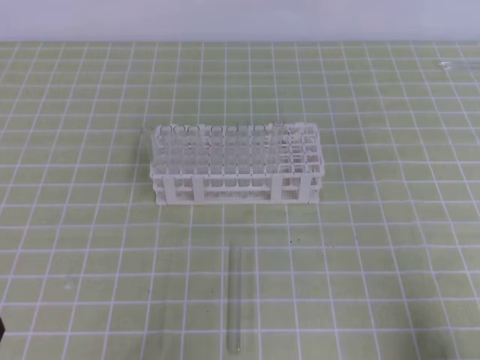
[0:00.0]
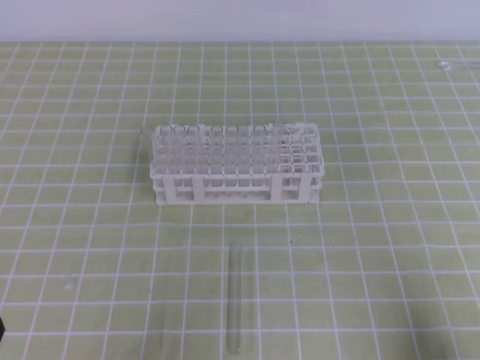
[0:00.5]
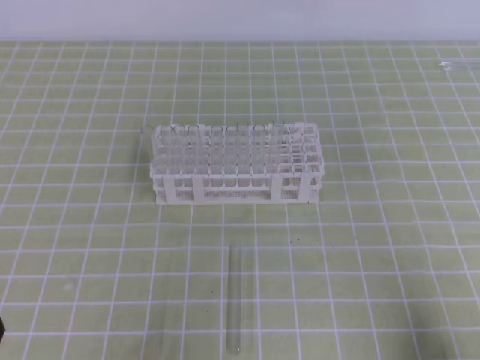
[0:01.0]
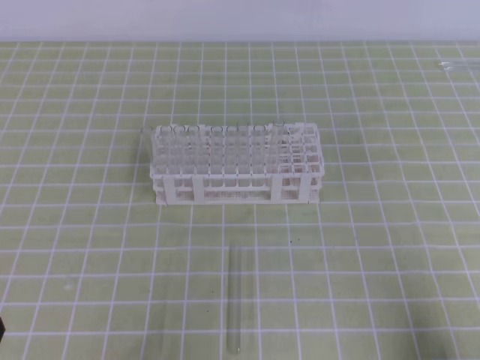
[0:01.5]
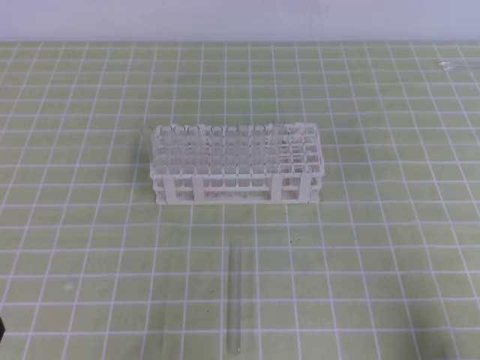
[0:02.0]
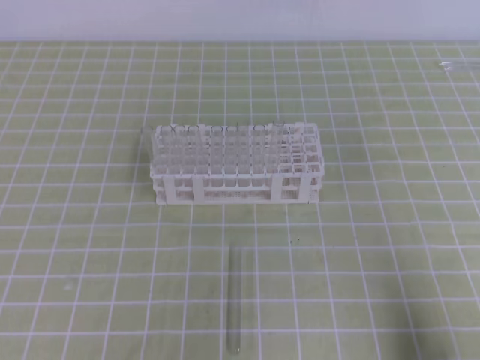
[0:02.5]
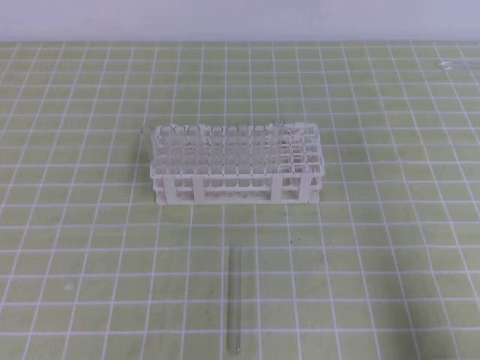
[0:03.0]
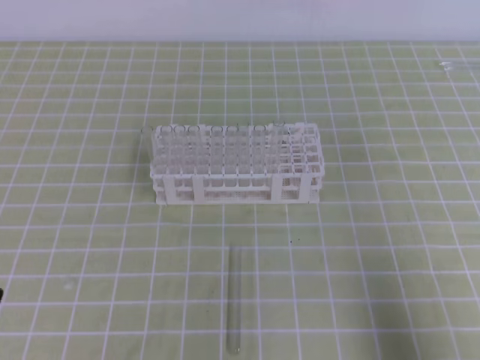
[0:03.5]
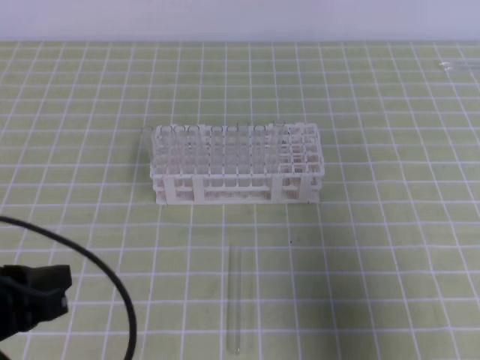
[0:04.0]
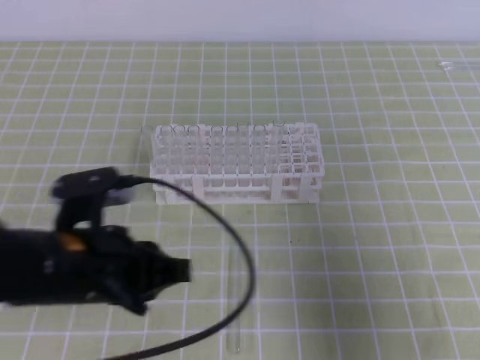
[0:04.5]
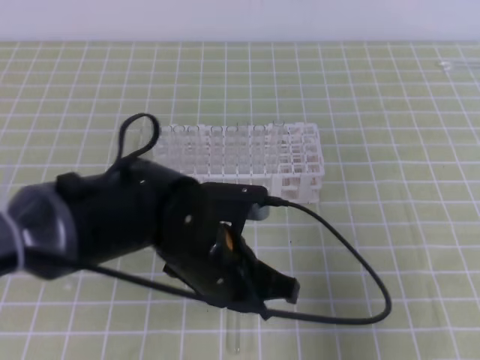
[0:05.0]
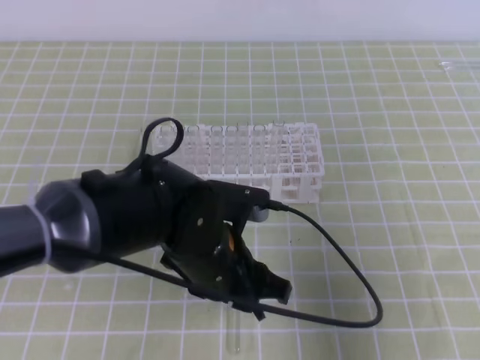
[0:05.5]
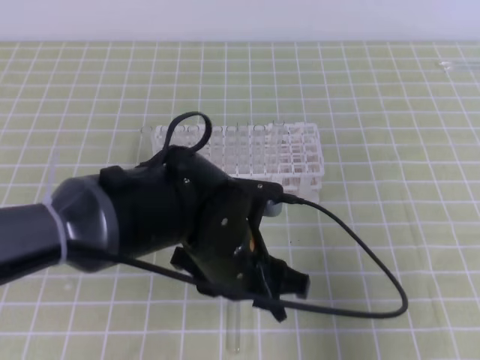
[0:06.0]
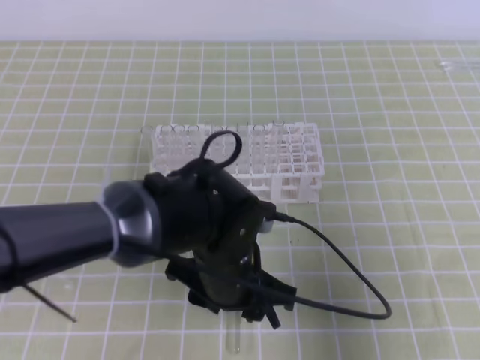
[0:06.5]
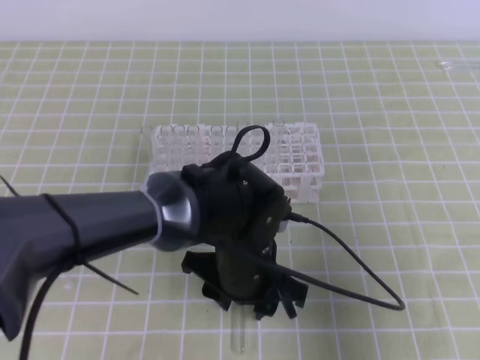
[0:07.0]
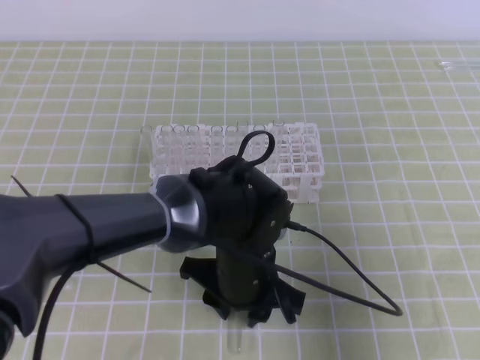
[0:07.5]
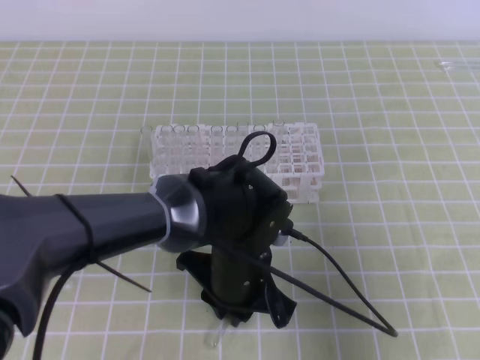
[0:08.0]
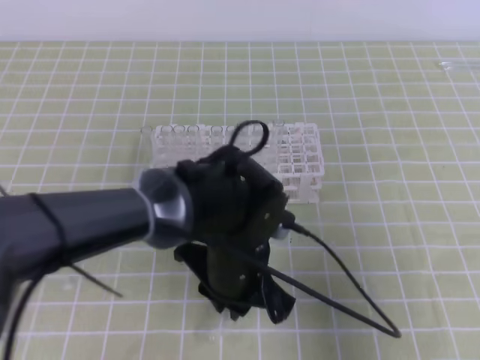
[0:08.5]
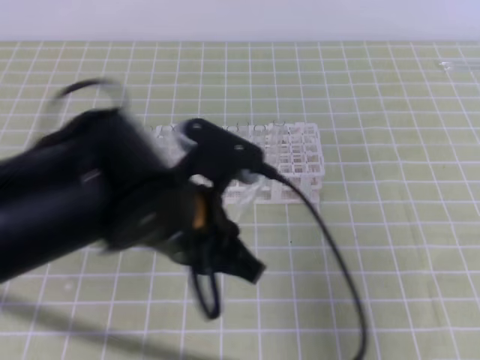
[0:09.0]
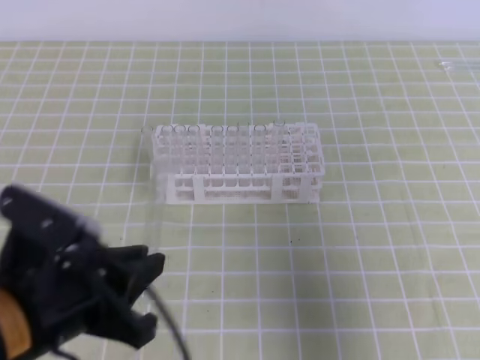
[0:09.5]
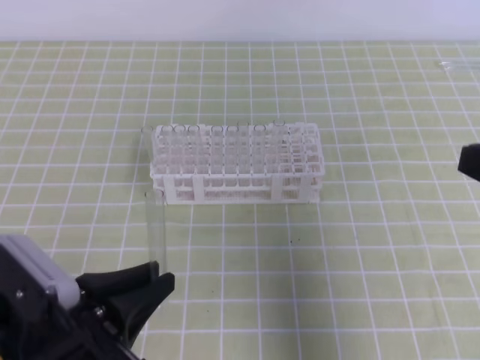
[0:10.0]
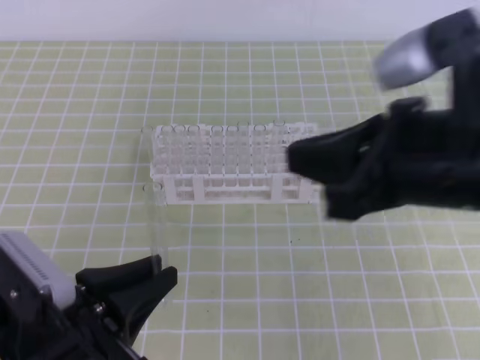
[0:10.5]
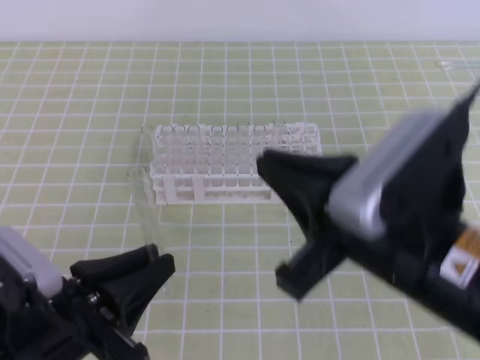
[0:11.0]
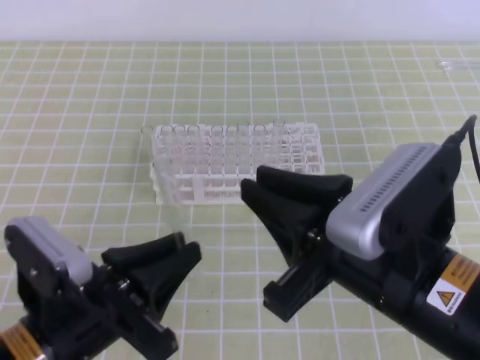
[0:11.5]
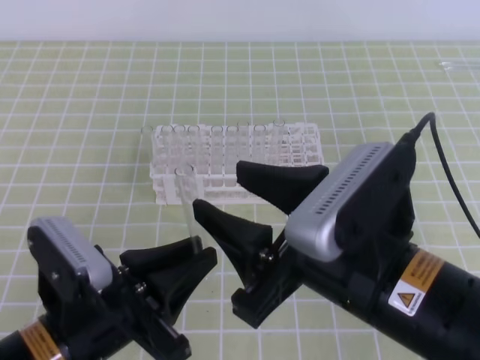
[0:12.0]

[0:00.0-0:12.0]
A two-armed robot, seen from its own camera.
0:00.0 to 0:02.0: Neither gripper changes place.
0:02.0 to 0:04.0: Both grippers move upward and forward, approximately 10 cm.
0:04.0 to 0:06.0: The left gripper goes roughly 25 cm to the right and forward, and opens.
0:06.0 to 0:08.0: The left gripper travels downward by approximately 5 cm, and closes its fingers.
0:08.0 to 0:10.0: The left gripper heads to the left and backward, covering some 20 cm. The right gripper heads upward, covering approximately 10 cm.
0:10.0 to 0:12.0: The right gripper goes roughly 15 cm to the left, and opens up.

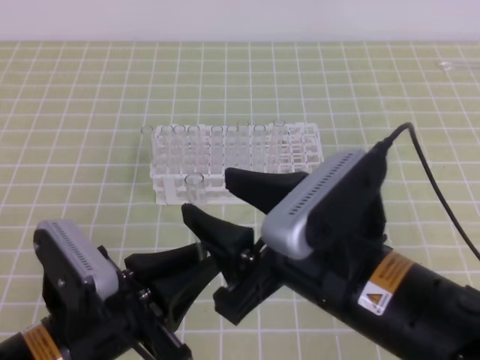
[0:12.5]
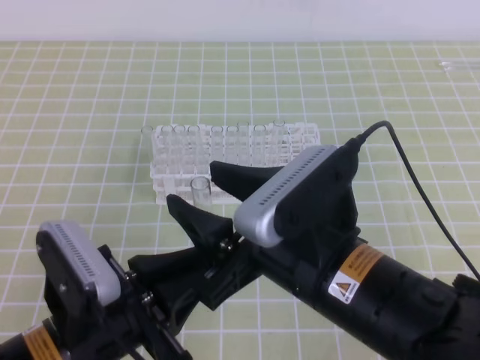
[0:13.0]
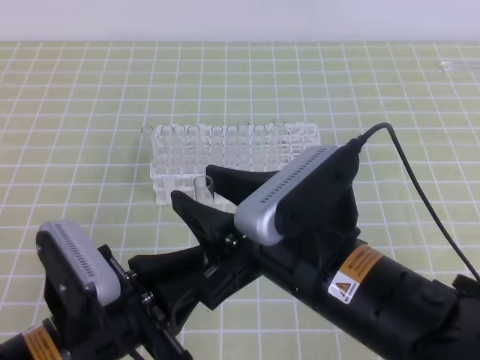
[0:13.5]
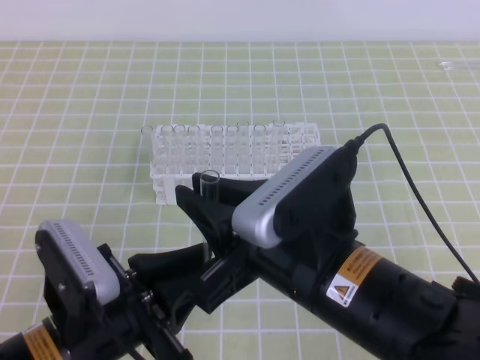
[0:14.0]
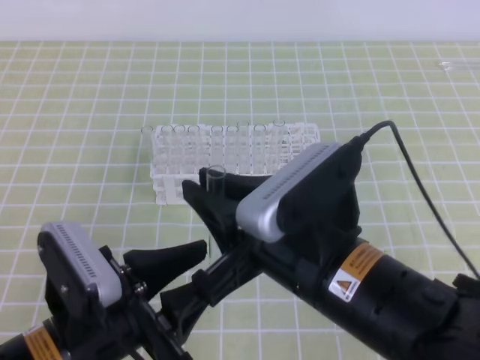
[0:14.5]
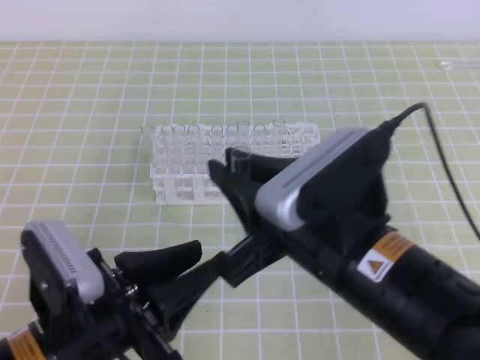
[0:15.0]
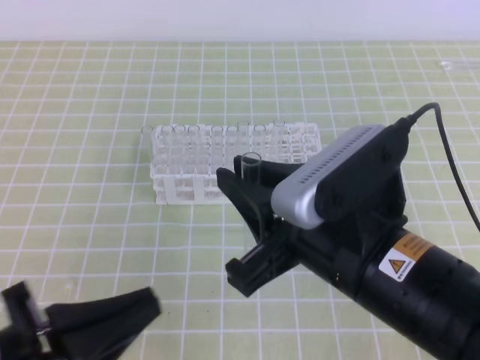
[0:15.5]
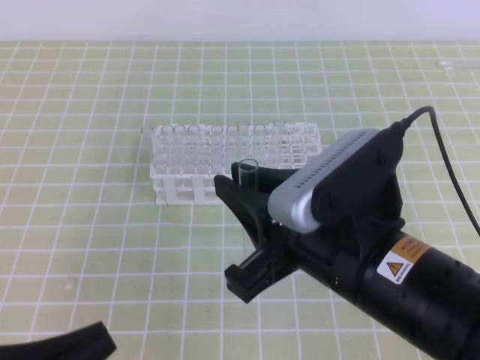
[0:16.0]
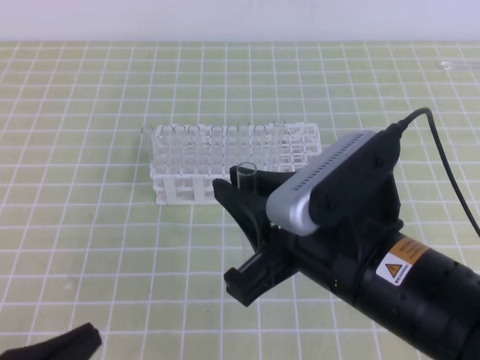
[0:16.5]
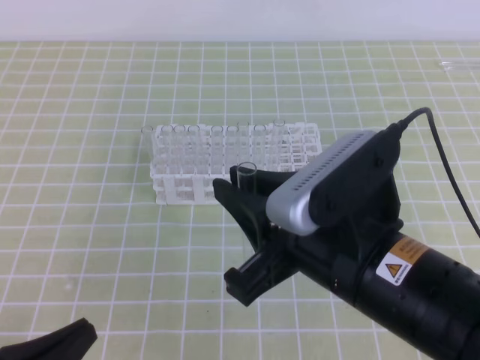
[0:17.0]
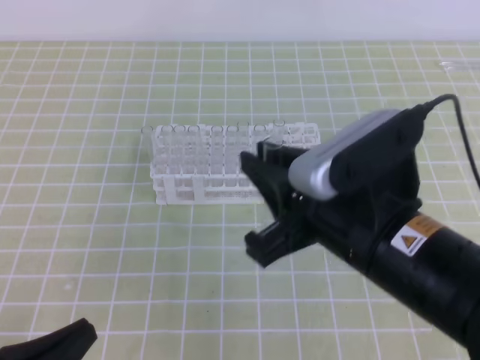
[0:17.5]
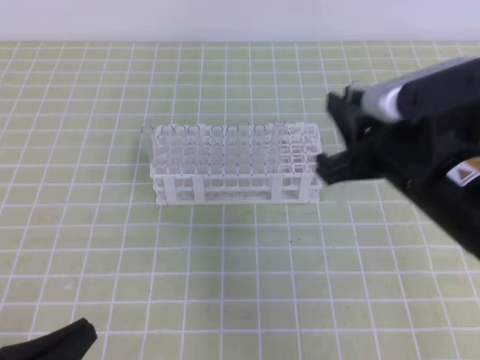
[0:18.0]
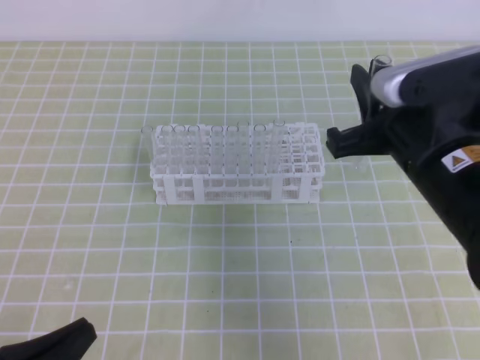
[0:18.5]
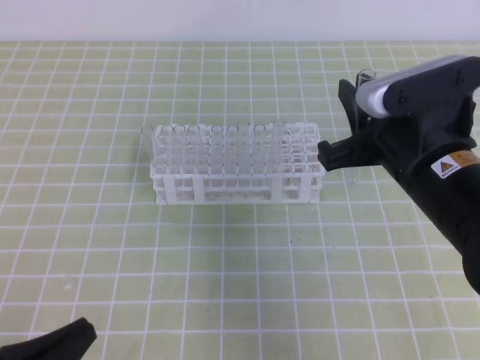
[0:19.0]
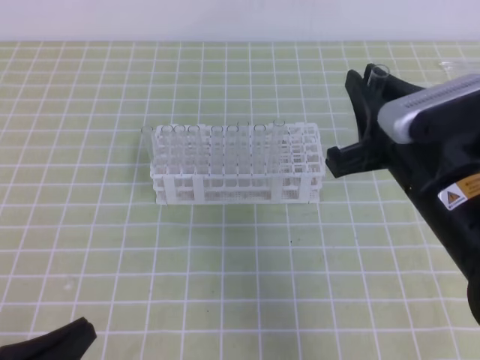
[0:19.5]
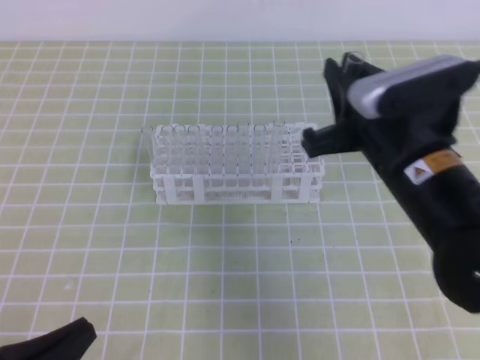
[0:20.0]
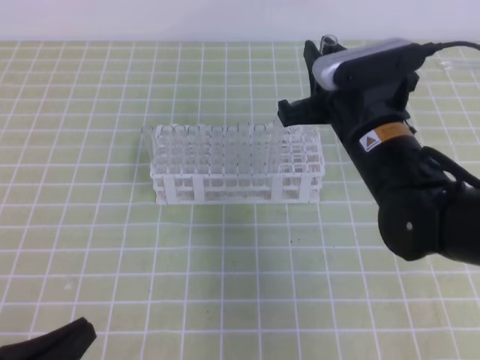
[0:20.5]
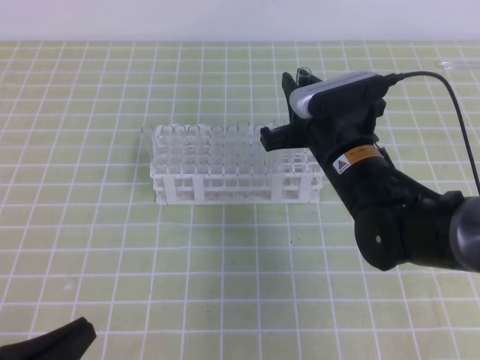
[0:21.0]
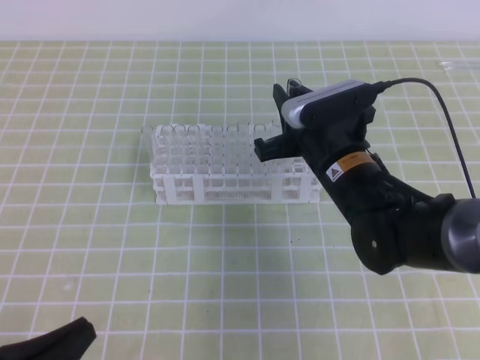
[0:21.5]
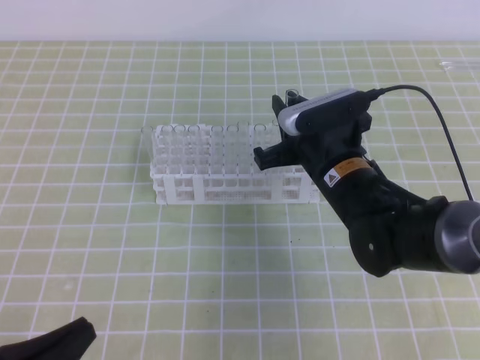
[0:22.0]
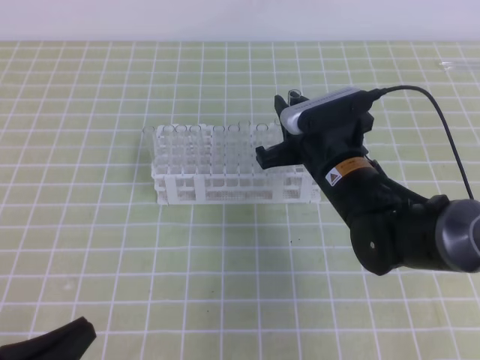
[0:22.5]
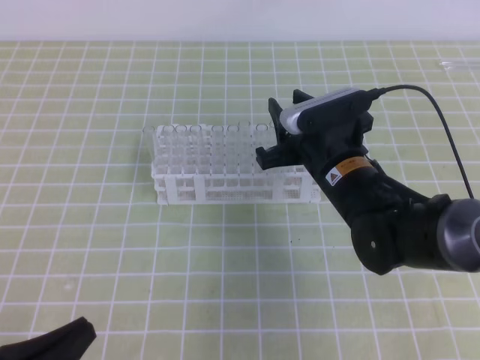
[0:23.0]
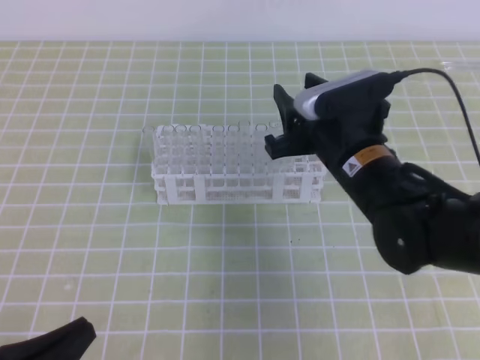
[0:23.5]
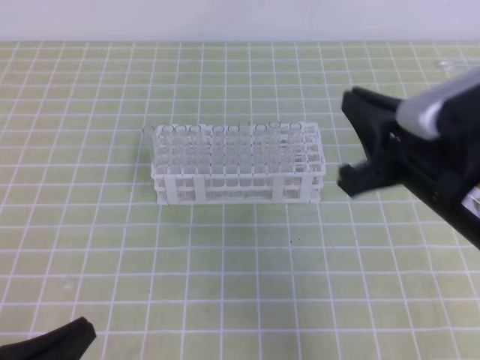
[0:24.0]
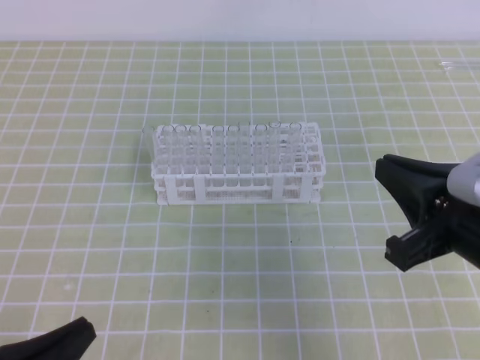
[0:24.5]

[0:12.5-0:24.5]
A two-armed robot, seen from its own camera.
0:12.5 to 0:14.5: The left gripper opens its fingers; the right gripper closes up.
0:14.5 to 0:16.5: The left gripper travels to the left and backward by about 10 cm, and closes.
0:16.5 to 0:18.5: The right gripper moves forward and to the right, some 10 cm.
0:18.5 to 0:20.5: The right gripper heads forward, covering approximately 5 cm.
0:20.5 to 0:22.5: The right gripper is displaced downward by some 5 cm.
0:22.5 to 0:24.5: The right gripper goes roughly 20 cm backward, to the right and upward, and opens, then closes again.

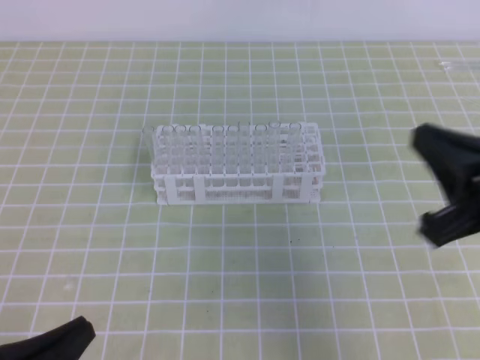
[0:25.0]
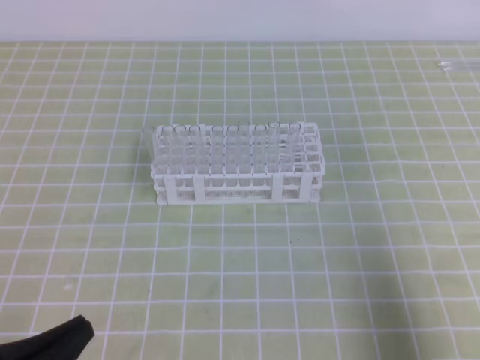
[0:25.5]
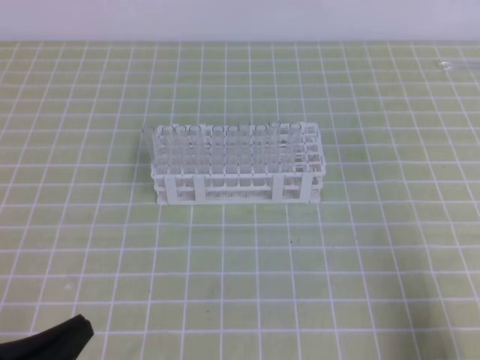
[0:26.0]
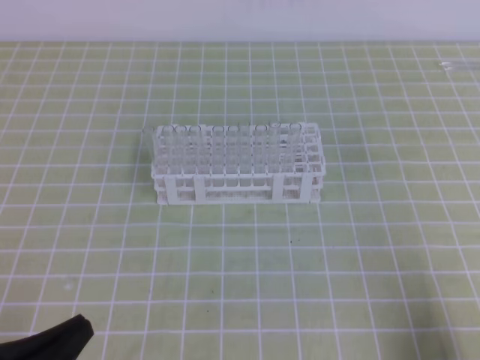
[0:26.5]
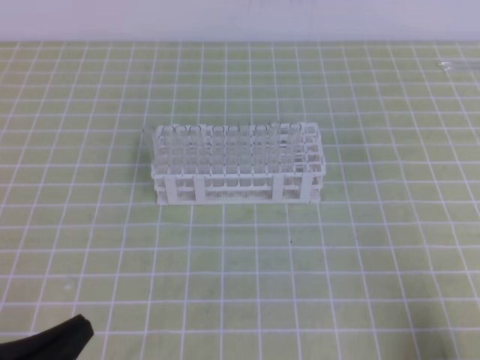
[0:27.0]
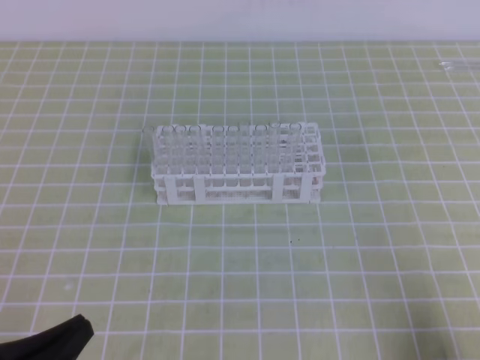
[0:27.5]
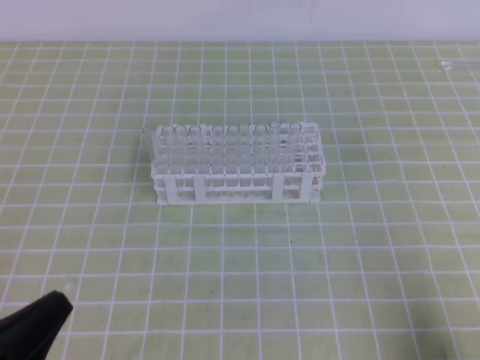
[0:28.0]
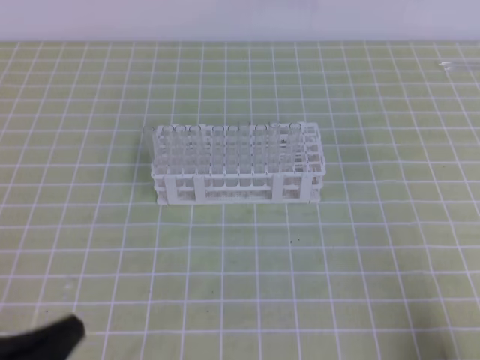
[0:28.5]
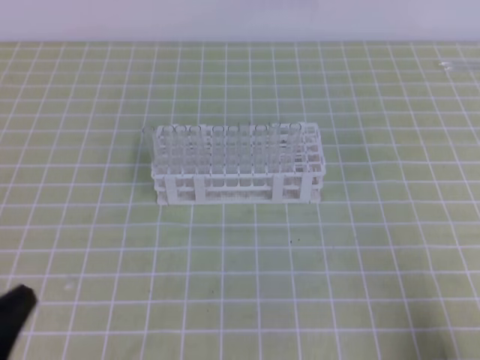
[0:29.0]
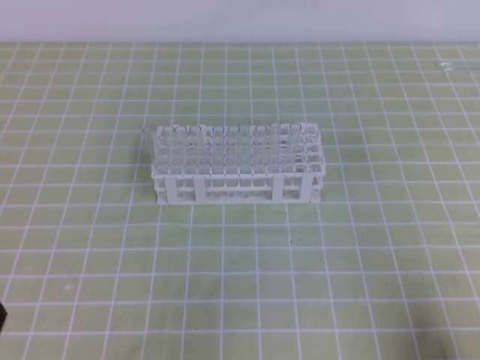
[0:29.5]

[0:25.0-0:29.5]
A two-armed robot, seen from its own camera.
0:25.0 to 0:27.0: The right gripper goes some 20 cm downward, backward and to the right.
